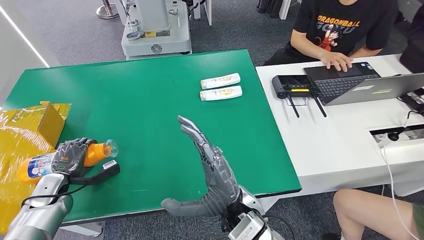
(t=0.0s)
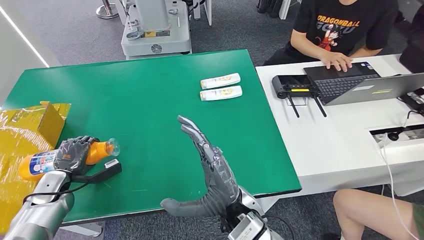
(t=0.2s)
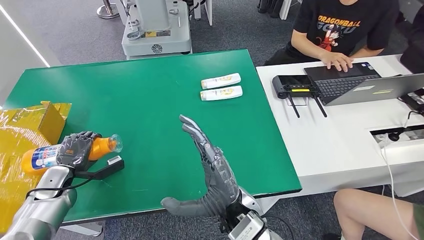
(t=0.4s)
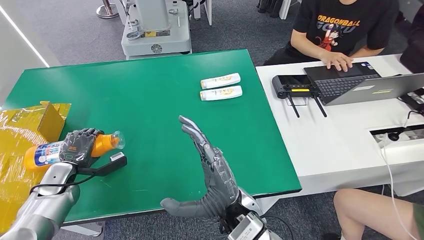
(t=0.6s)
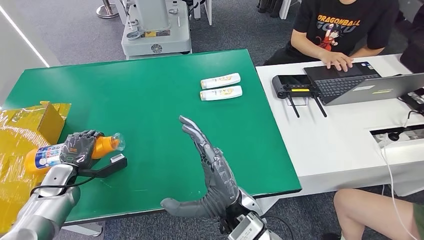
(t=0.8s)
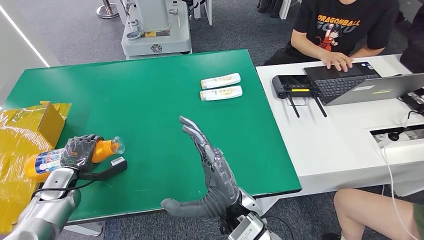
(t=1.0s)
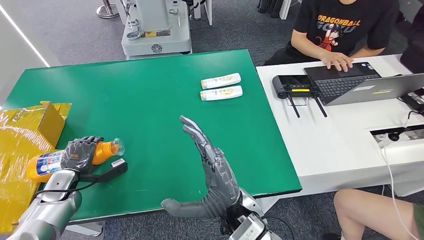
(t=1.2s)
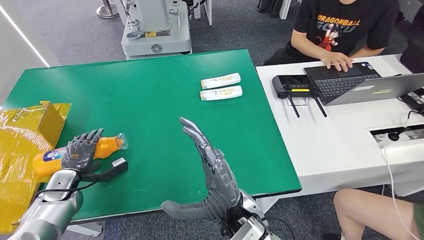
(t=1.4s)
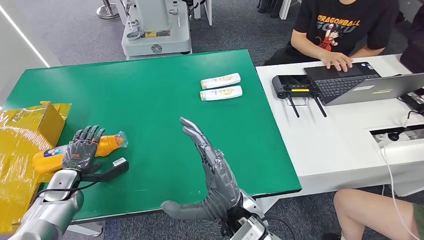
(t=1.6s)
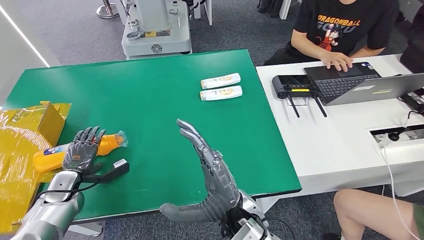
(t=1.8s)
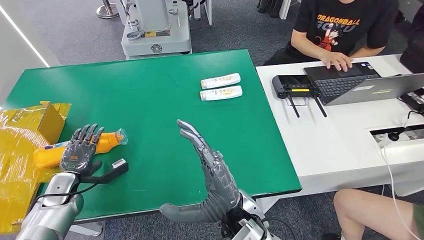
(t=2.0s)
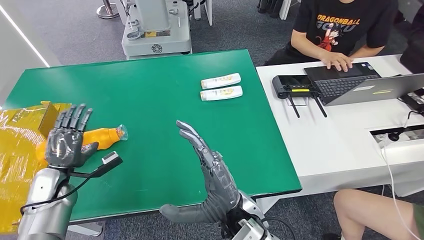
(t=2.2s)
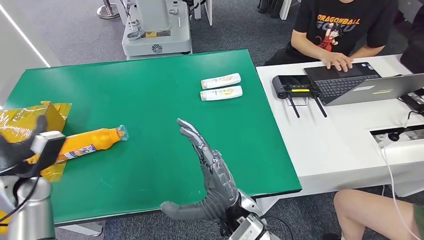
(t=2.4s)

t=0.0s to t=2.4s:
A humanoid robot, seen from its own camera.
Step, t=0.0s to t=2.4s: Turn the bottle to the front side.
t=0.0s to t=1.2s: The hands make only small movements.
t=1.2s to t=2.4s: The left hand travels upward by about 10 cm.
